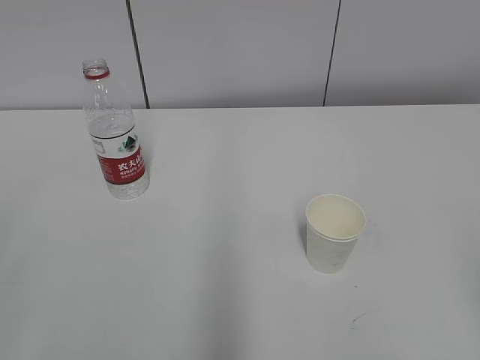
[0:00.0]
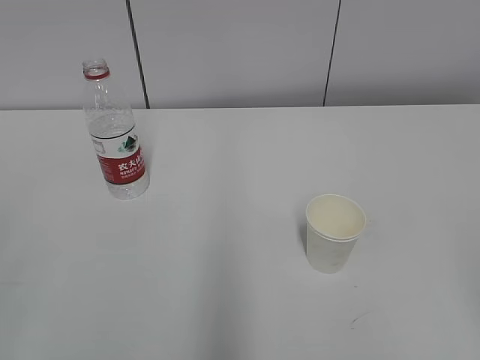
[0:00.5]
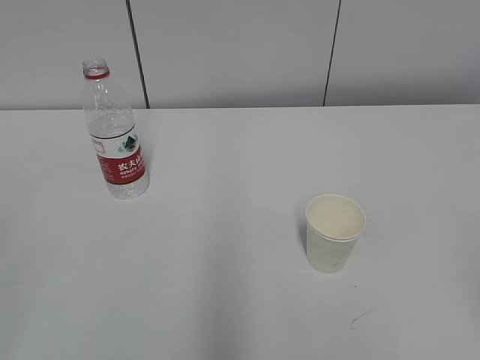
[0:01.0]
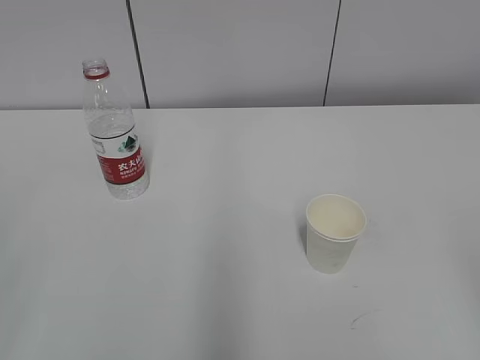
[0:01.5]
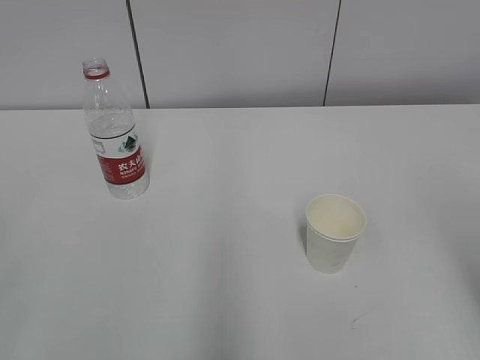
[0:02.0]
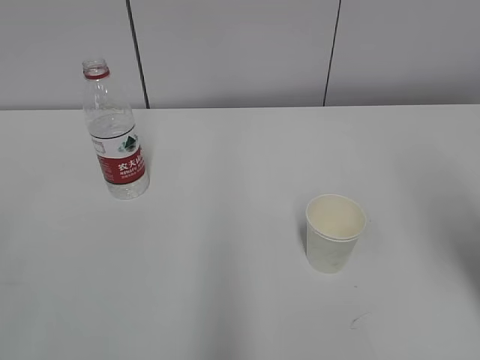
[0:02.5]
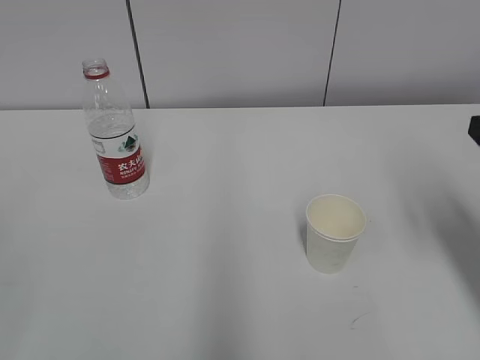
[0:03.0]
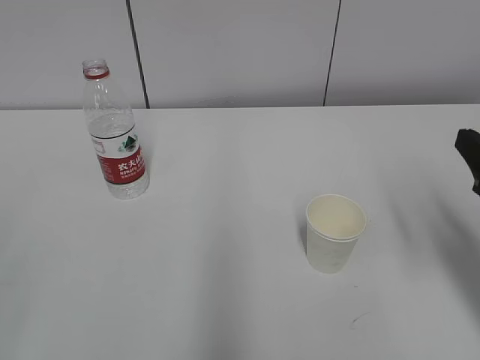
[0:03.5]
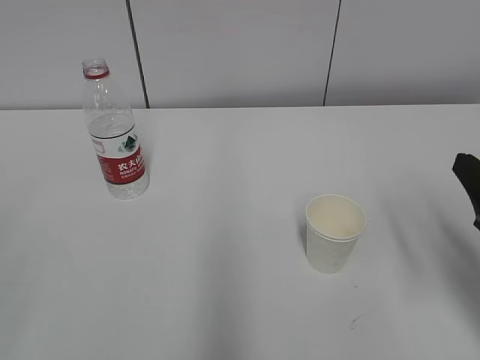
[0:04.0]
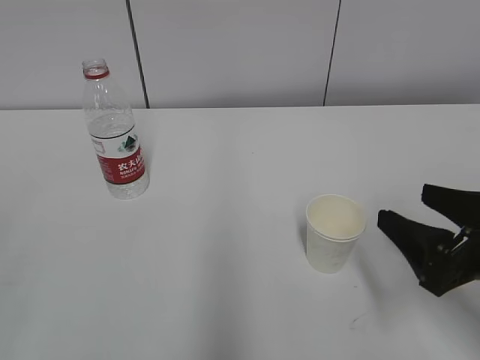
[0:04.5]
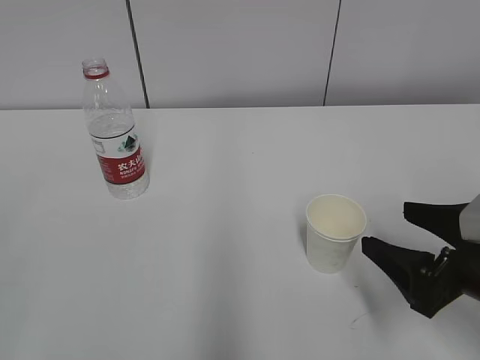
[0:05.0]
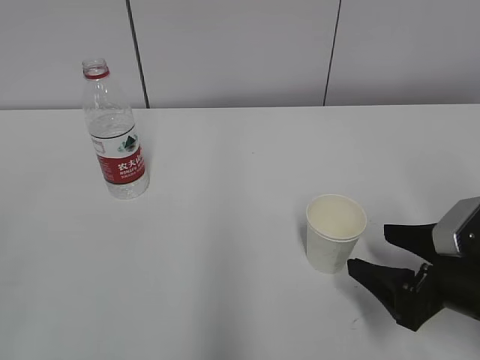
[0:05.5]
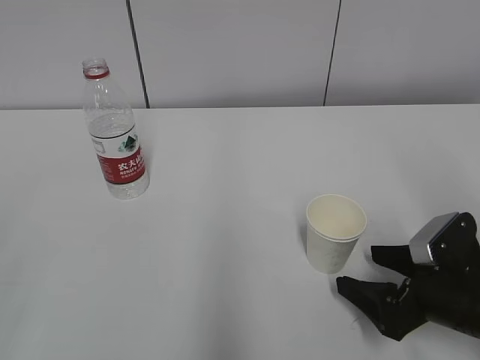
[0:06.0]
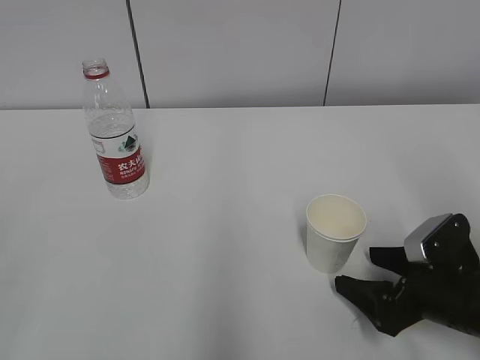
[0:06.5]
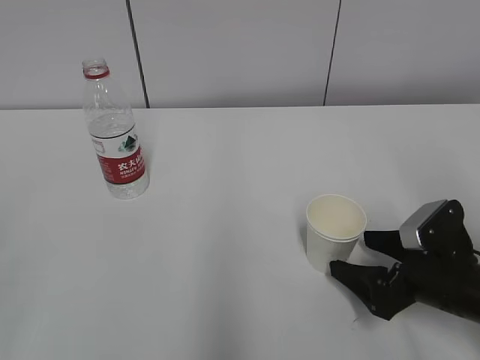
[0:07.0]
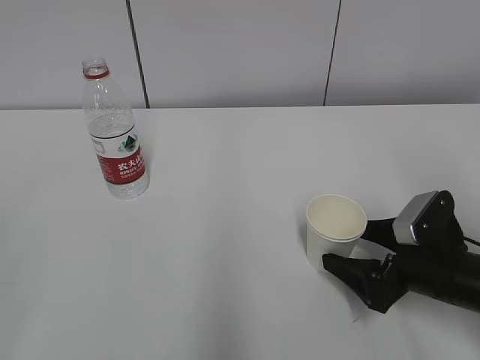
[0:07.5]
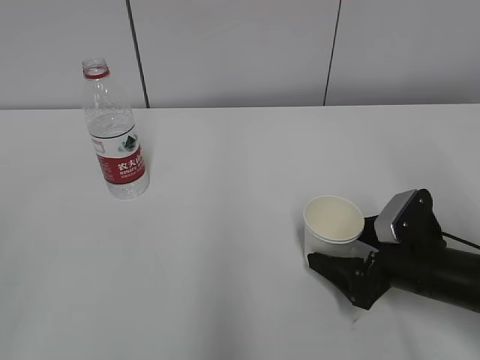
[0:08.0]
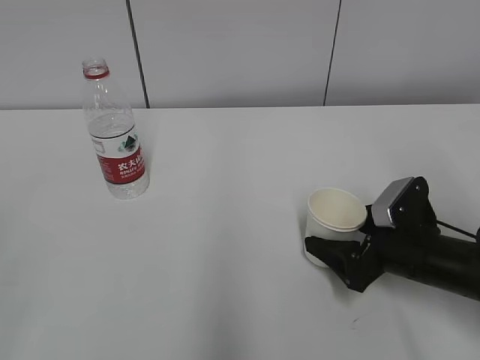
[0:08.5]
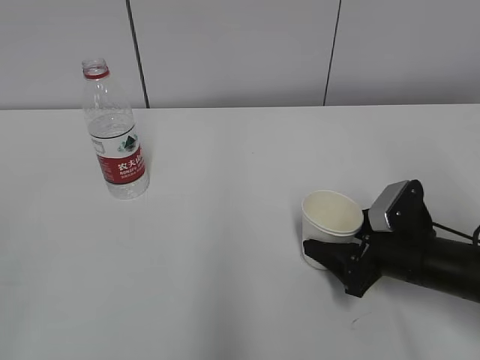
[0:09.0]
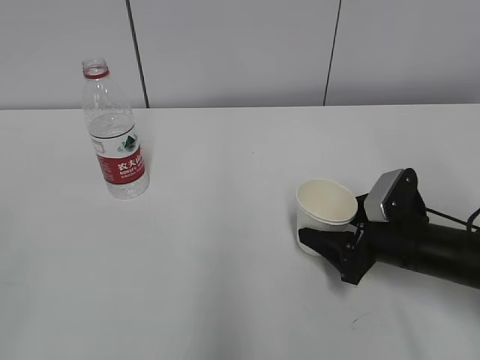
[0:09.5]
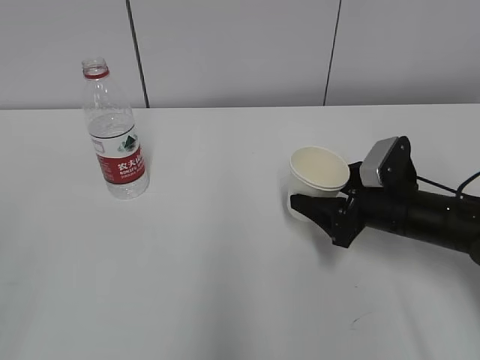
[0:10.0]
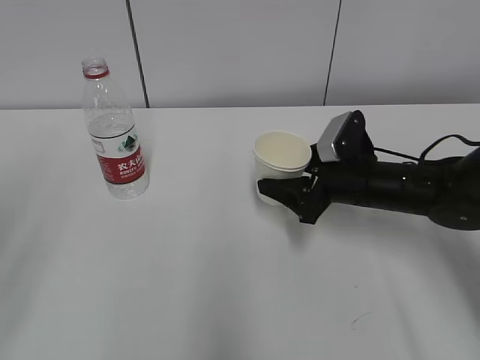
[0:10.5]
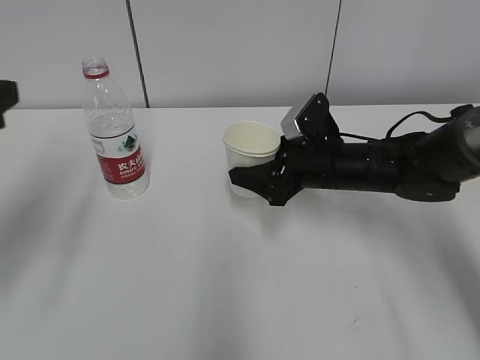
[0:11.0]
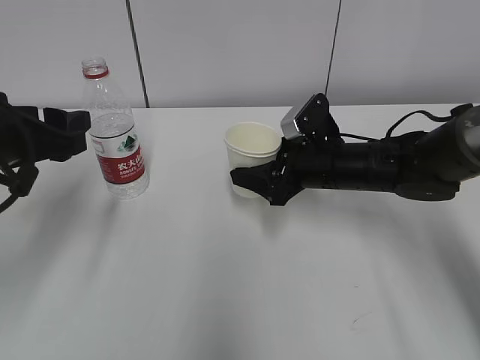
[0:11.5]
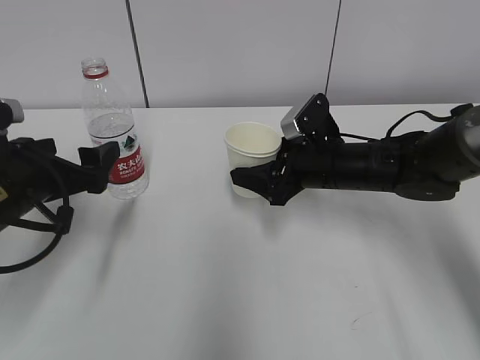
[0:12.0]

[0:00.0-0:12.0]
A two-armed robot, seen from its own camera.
Step, 0:00.0 to 0:07.0: Grab the paper cup with the right hand.
0:02.0 to 0:04.0: The right gripper shifts about 15 cm forward and downward.
0:04.0 to 0:06.0: The right gripper travels downward by about 15 cm, and opens up.
0:06.0 to 0:08.0: The right gripper shifts by some 5 cm.
0:08.0 to 0:10.0: The right gripper heads forward, covering roughly 5 cm, and closes up.
0:10.0 to 0:12.0: The right gripper heads to the left and forward, covering approximately 10 cm. Meanwhile the left gripper goes approximately 30 cm forward and downward, and opens up.

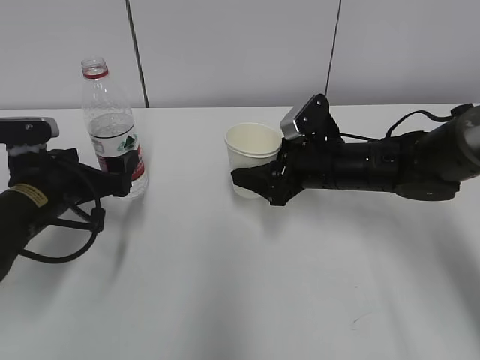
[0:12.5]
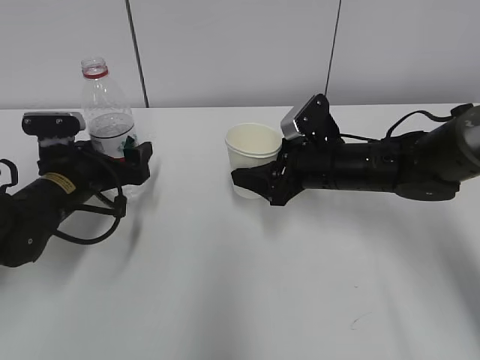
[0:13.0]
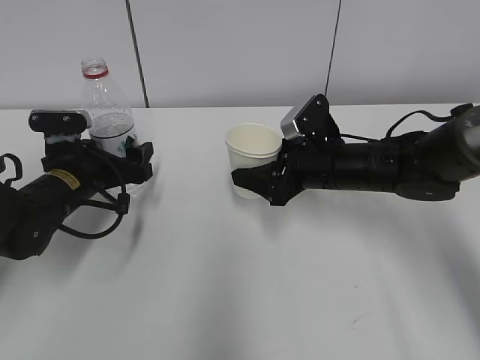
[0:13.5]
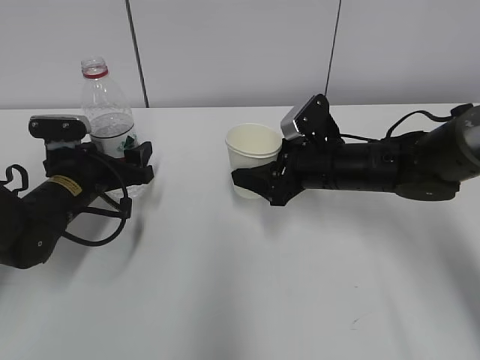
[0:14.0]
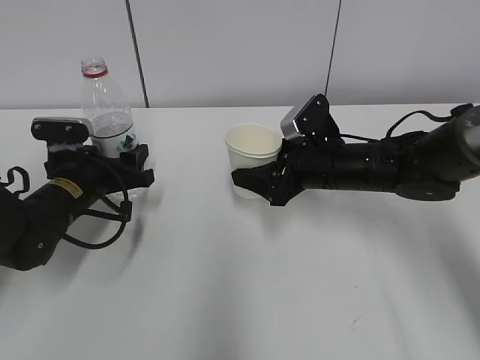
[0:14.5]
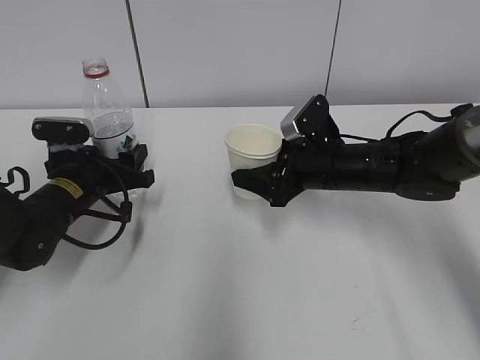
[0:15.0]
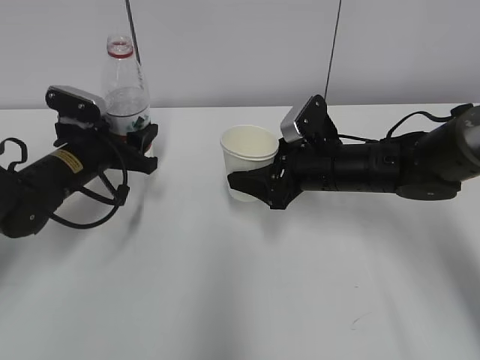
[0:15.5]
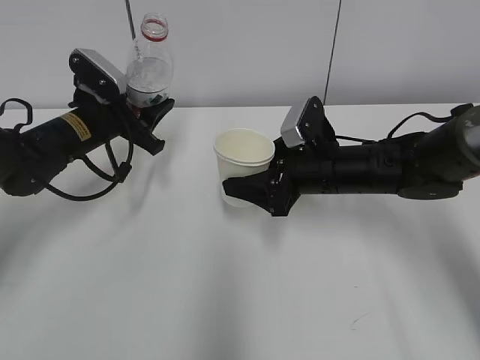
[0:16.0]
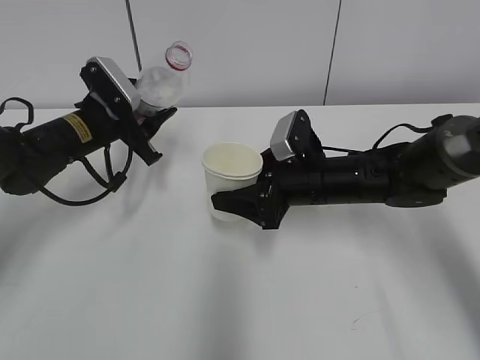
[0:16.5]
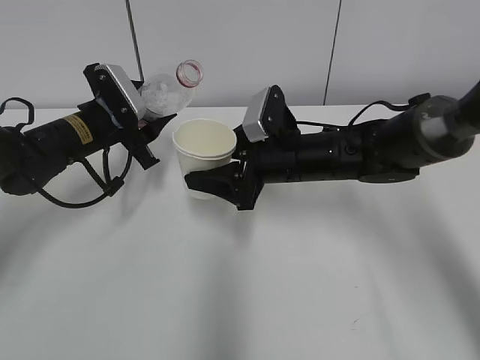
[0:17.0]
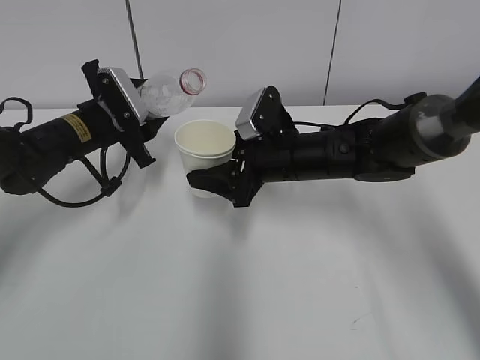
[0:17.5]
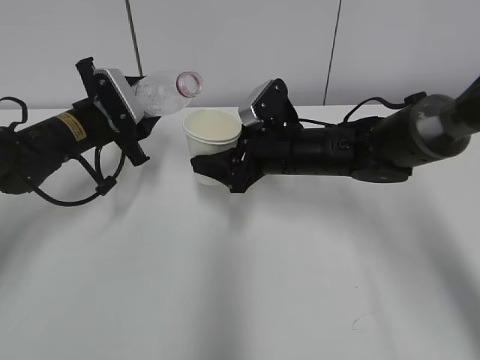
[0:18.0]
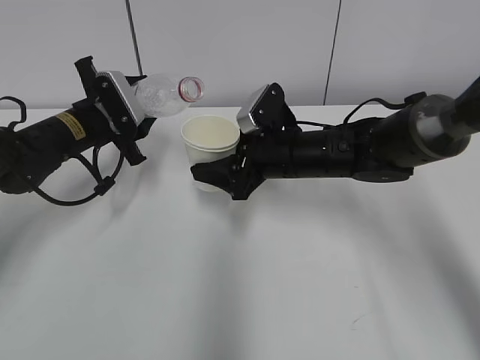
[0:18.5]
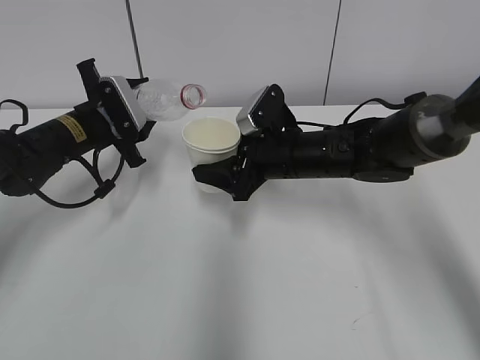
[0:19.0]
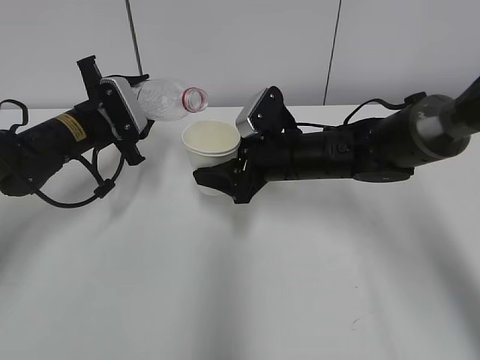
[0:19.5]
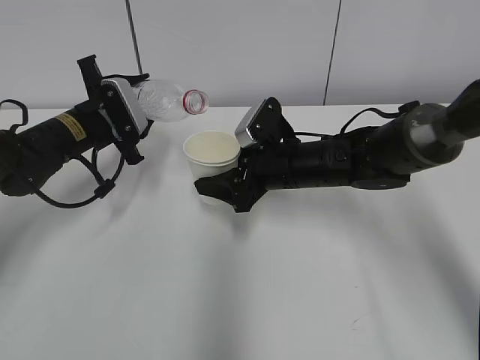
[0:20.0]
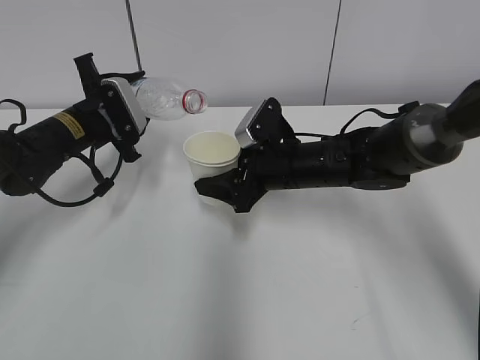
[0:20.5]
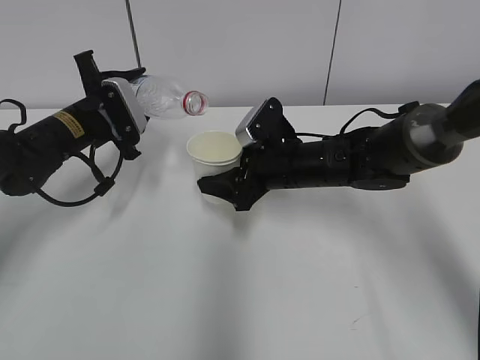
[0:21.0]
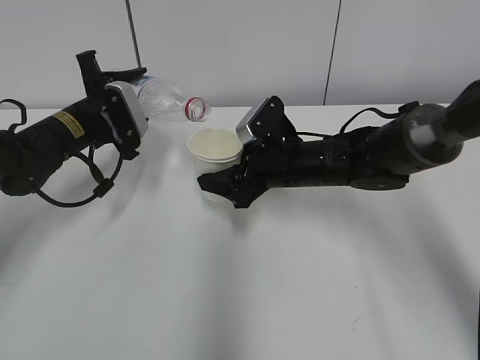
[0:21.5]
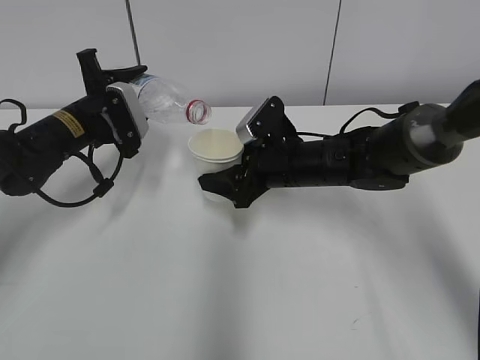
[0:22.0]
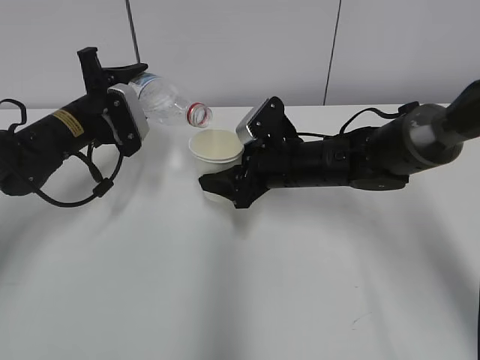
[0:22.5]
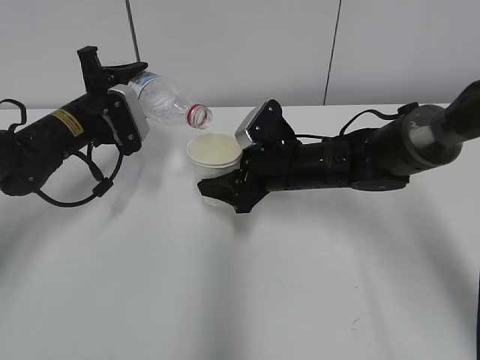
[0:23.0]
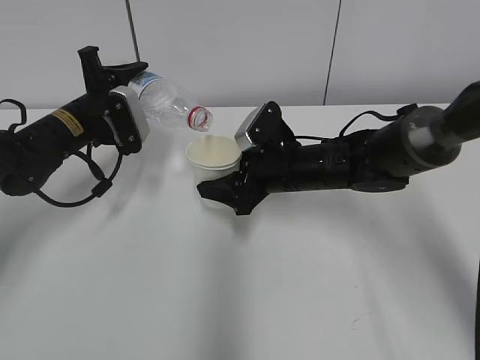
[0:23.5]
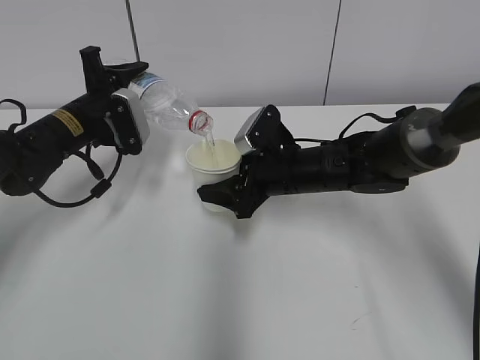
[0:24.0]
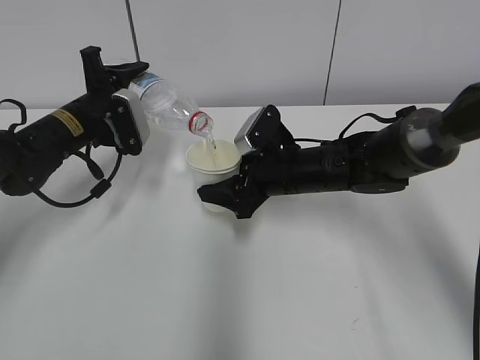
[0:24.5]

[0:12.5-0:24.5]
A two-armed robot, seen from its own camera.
Step, 0:12.5 to 0:19.0: Lift the paper cup with the right hand.
Step, 0:19.5 to 0:23.5: Fill water with the right hand.
Step, 0:19.5 to 0:23.5: Pour water with the left hand.
0:12.5 to 0:14.5: The left gripper shifts by roughly 5 cm, and closes up.
0:14.5 to 0:16.5: The left gripper goes roughly 10 cm forward and upward.
0:16.5 to 0:18.5: The grippers stay close to where they were, moving slightly.
0:18.5 to 0:20.5: The grippers make only small movements.
0:20.5 to 0:24.5: The grippers make only small movements.

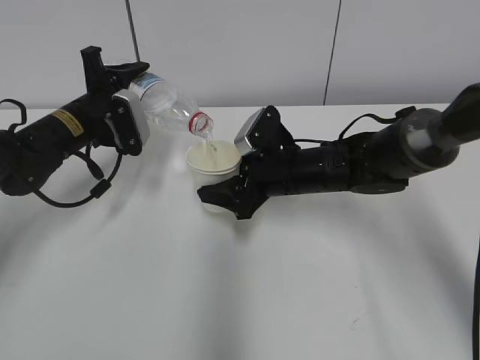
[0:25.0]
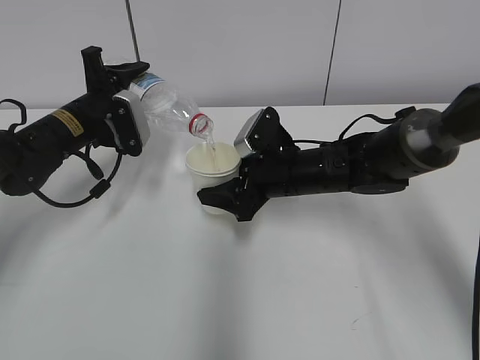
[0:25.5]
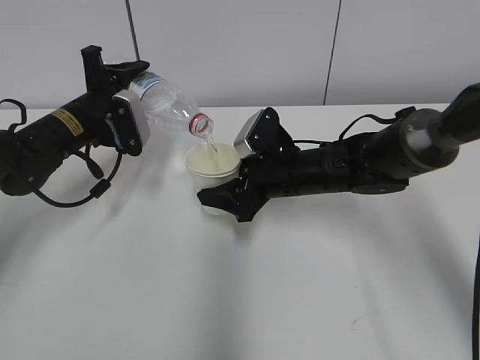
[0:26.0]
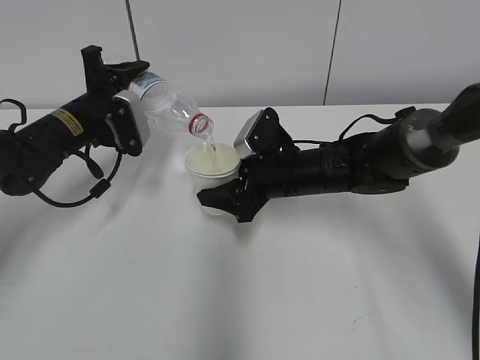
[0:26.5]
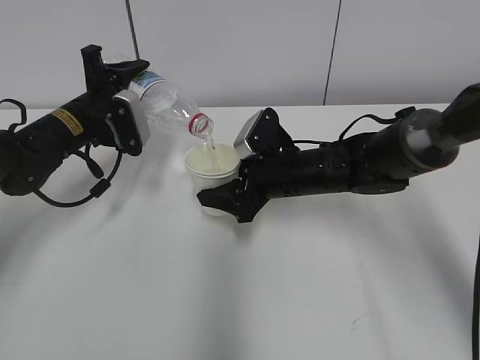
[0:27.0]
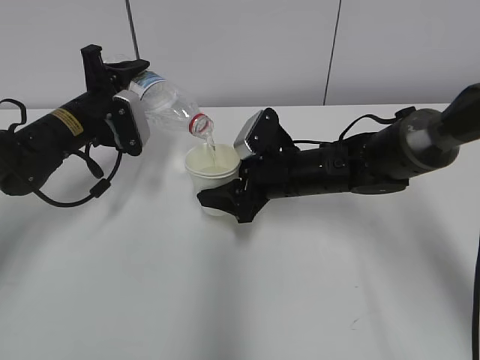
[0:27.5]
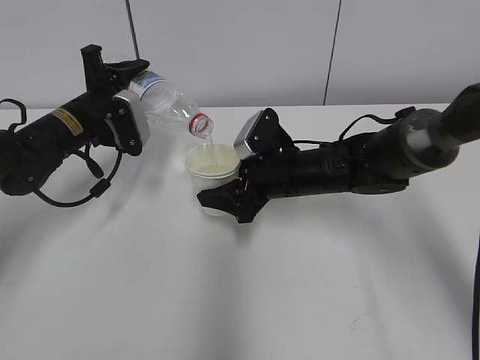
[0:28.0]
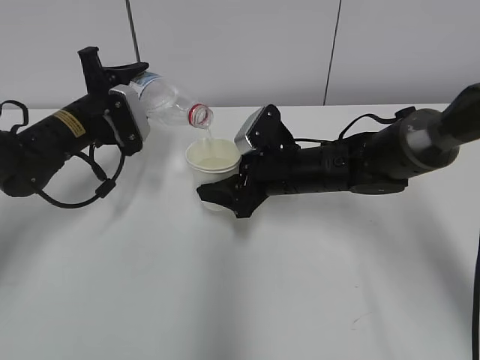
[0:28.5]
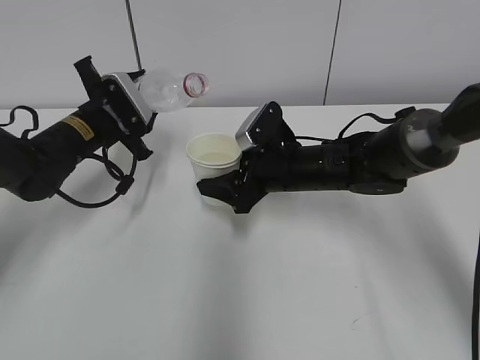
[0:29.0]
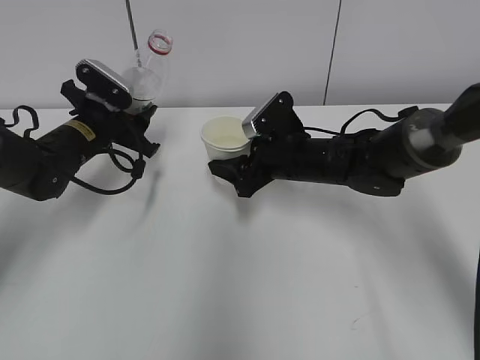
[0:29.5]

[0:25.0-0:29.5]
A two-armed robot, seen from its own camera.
0:25.0 to 0:27.0: Neither gripper changes place.
